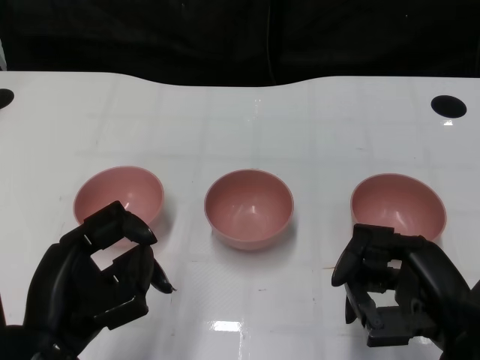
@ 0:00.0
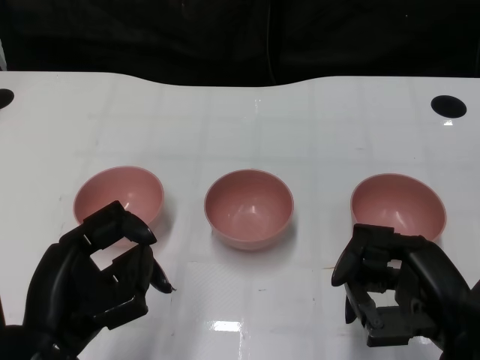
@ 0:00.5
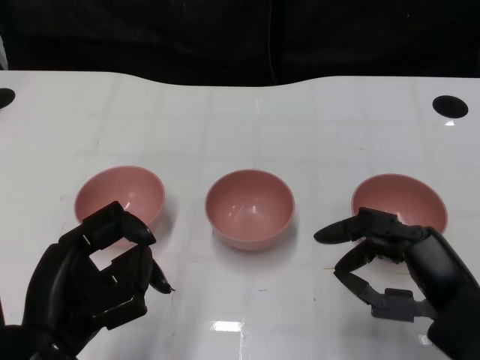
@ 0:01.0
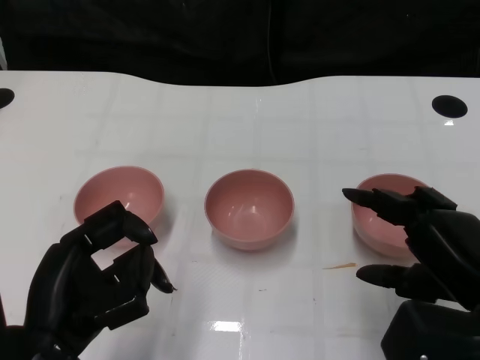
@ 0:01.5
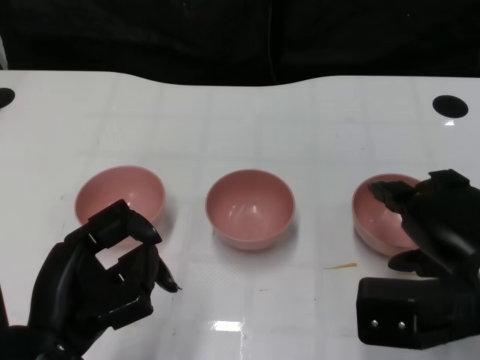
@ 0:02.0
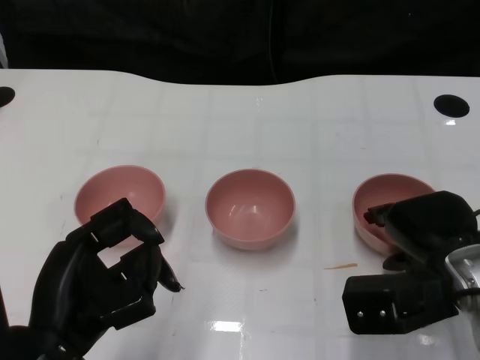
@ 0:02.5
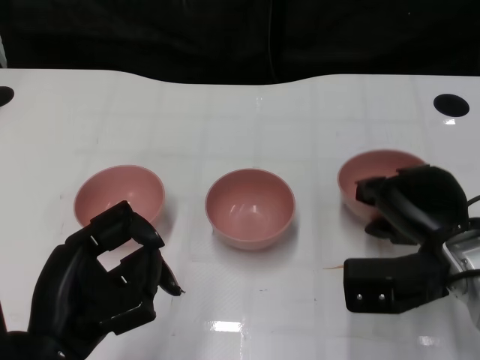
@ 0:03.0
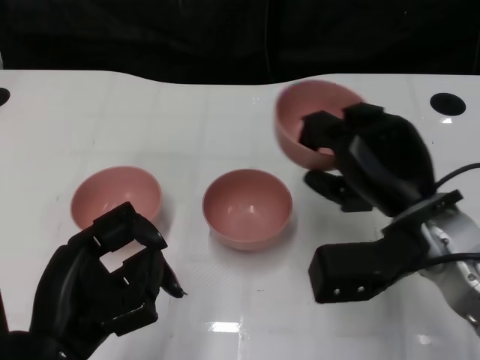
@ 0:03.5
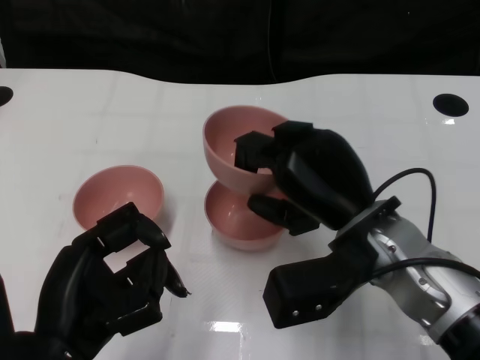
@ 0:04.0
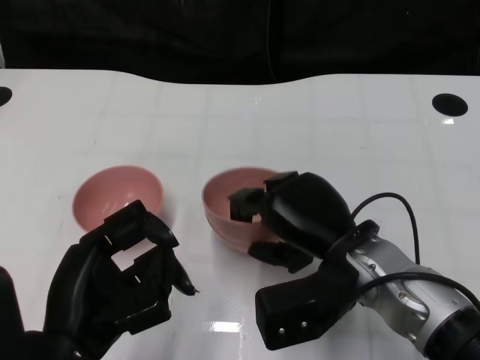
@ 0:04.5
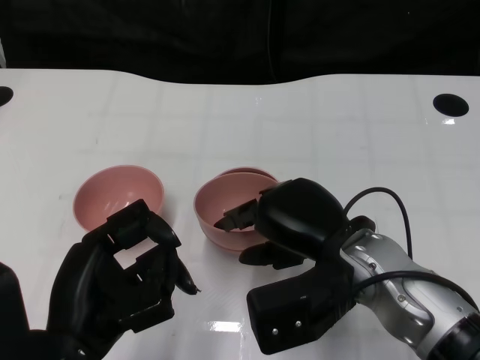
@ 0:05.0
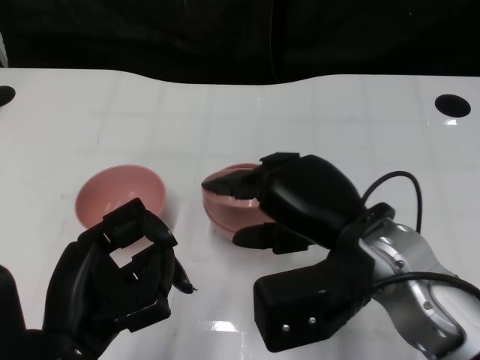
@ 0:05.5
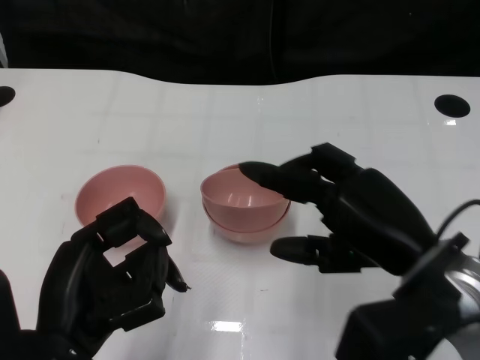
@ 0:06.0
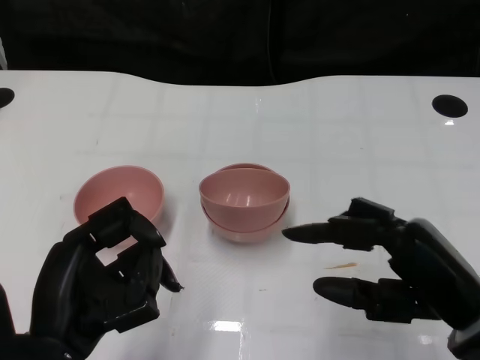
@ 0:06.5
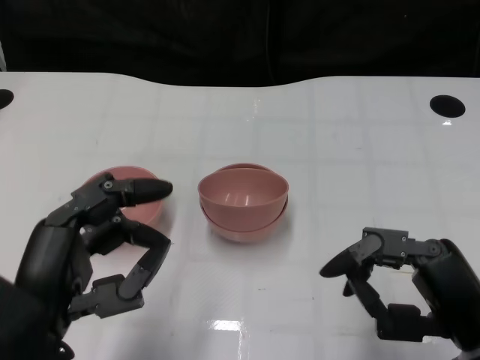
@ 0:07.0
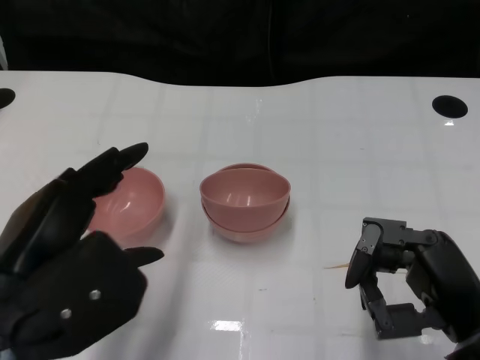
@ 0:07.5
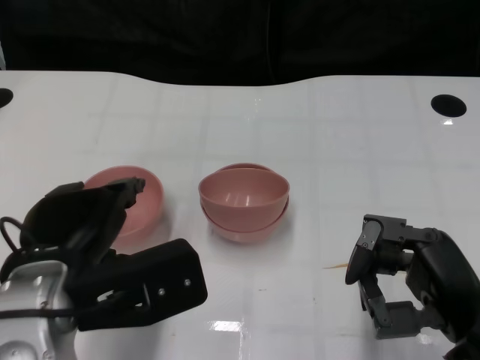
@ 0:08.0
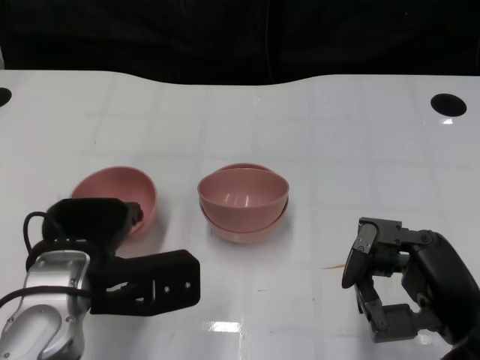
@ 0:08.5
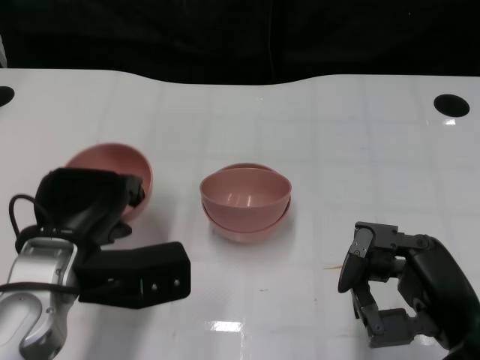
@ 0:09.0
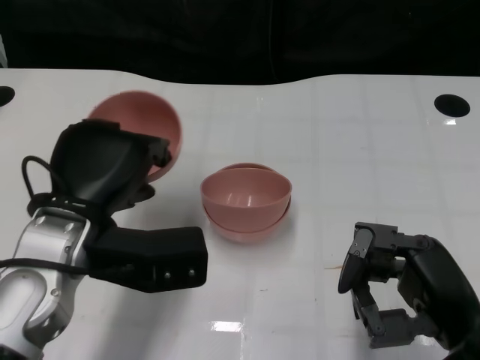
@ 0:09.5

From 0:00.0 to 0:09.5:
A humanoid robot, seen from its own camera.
Task of the whole recording: Pick up the bowl on one side of the table and place it on top of the middle bowl, then pick up the bowl on the other side of the table and place it on top of the middle bowls.
Step, from 0:01.0 to 0:02.5: Grasp the bowl on the right with the right gripper.
Step, from 0:03.5 to 0:05.5: Place the bowl on the right onto the bowl in the middle with right gripper.
Step, from 0:06.0 to 0:08.5: Grasp the bowl on the left with the left gripper.
From 0:02.0 to 0:04.0: The right hand shifts about 10 cm to the left and forward.
From 0:05.5 to 0:07.5: The right hand goes approximately 15 cm to the right, backward and downward. The left hand moves upward, some 5 cm.
From 0:07.5 to 0:09.5: The left hand travels forward by some 10 cm.

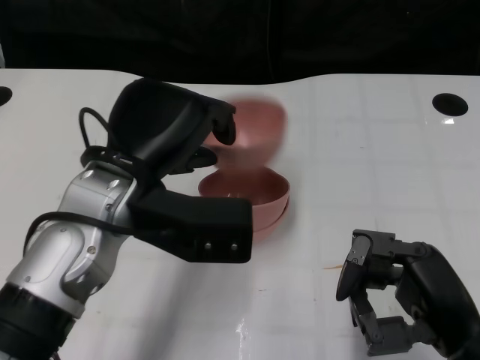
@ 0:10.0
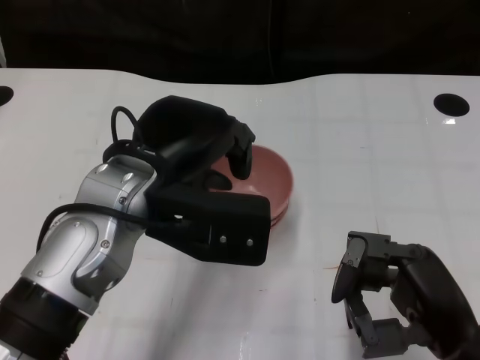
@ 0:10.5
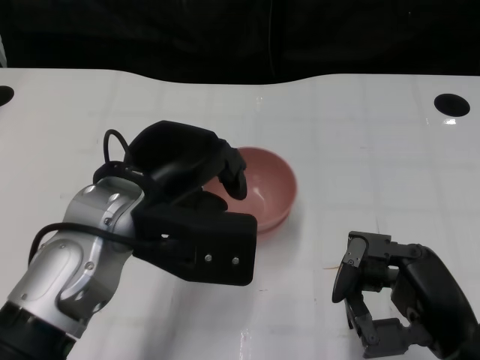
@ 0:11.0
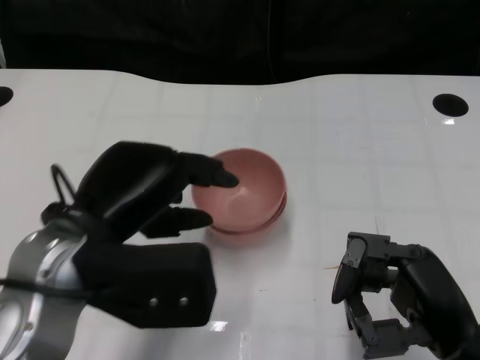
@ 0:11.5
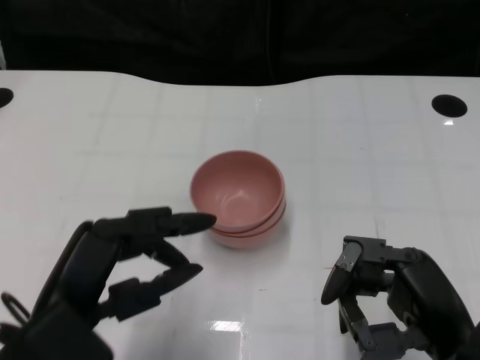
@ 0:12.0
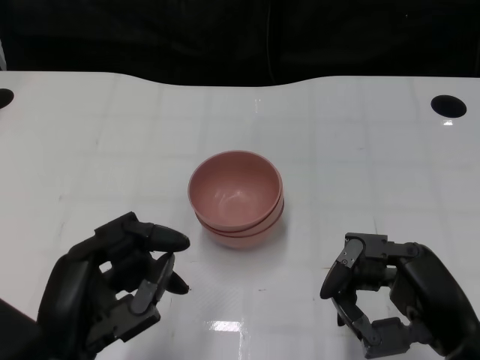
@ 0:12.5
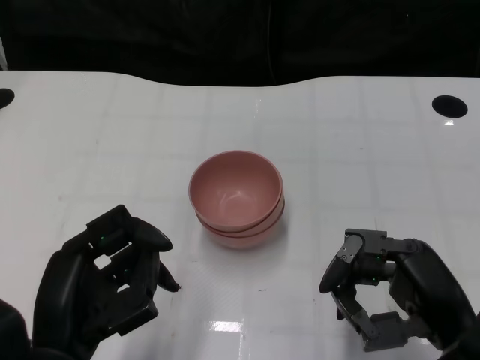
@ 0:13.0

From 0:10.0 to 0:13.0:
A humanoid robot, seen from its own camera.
Task of the whole recording: Pick up the bowl on one side of the table and place it on top of the middle bowl, then pick up the bowl on the other side of the table and place it on top of the middle bowls.
Step, from 0:10.0 to 0:11.5: Place the bowl on the left onto the bowl in the middle with left gripper.
From 0:10.0 to 0:11.5: The left hand ends up approximately 5 cm from where it was.
From 0:11.5 to 0:13.0: The left hand goes approximately 10 cm backward and downward.

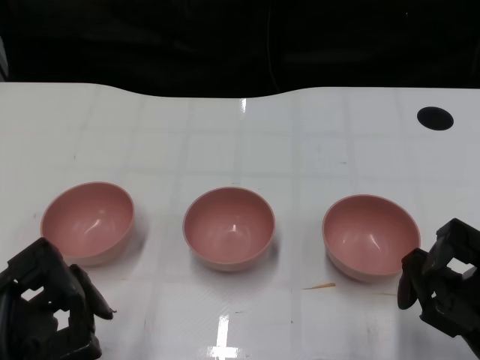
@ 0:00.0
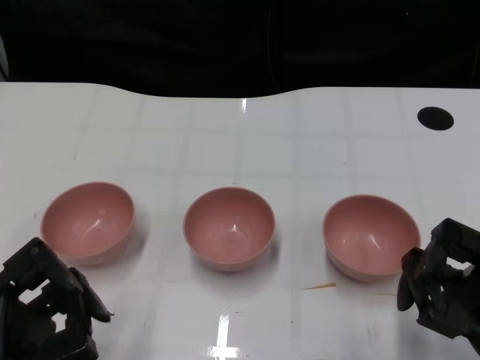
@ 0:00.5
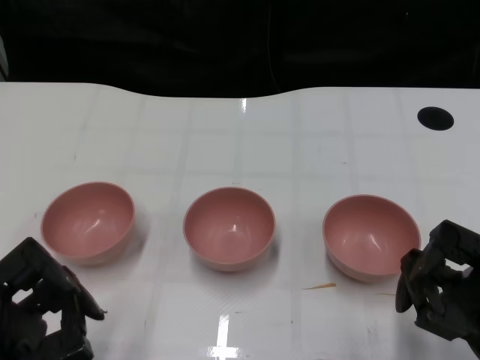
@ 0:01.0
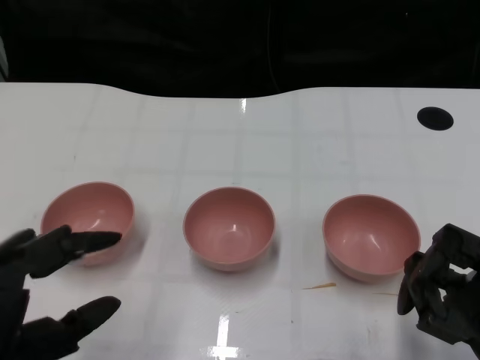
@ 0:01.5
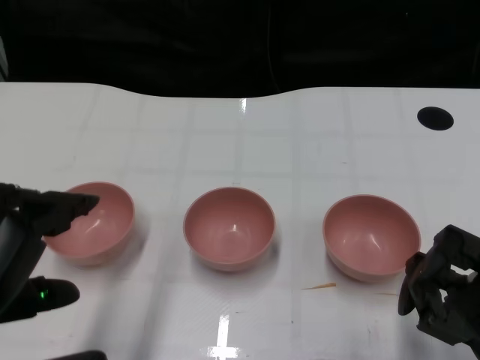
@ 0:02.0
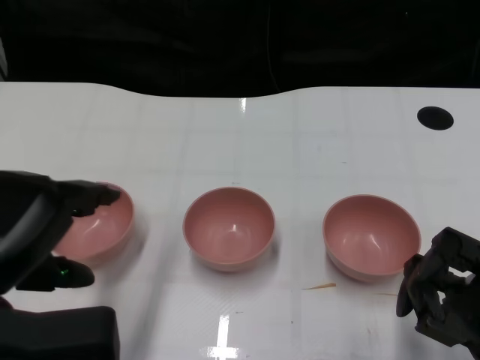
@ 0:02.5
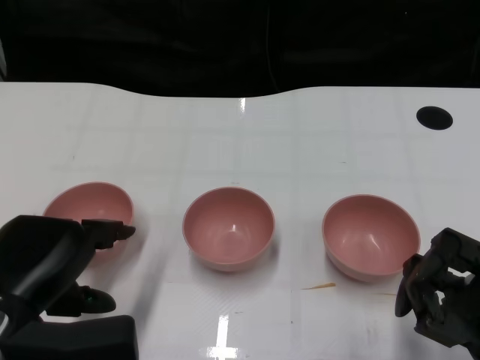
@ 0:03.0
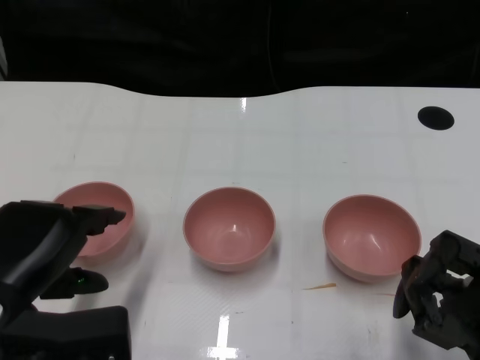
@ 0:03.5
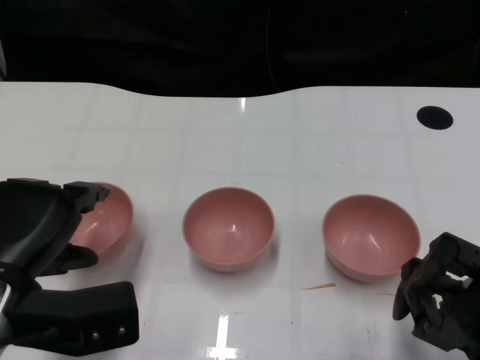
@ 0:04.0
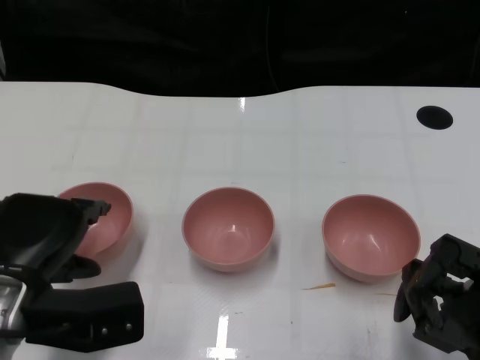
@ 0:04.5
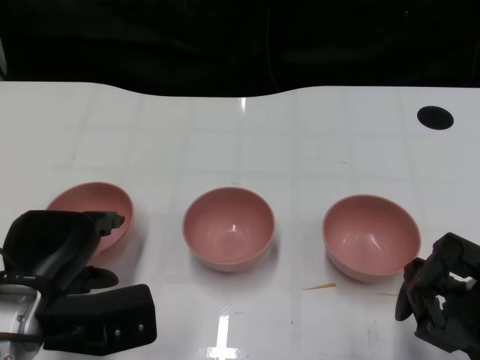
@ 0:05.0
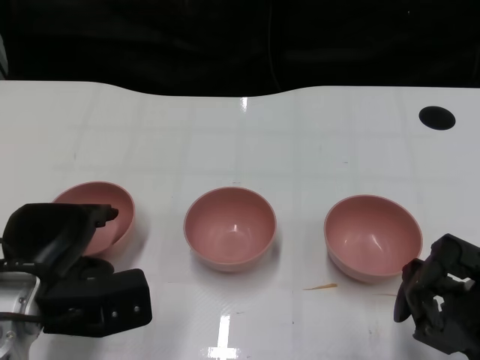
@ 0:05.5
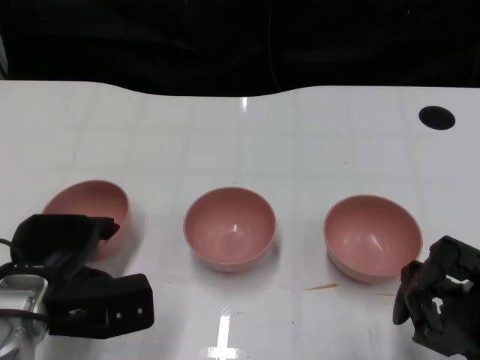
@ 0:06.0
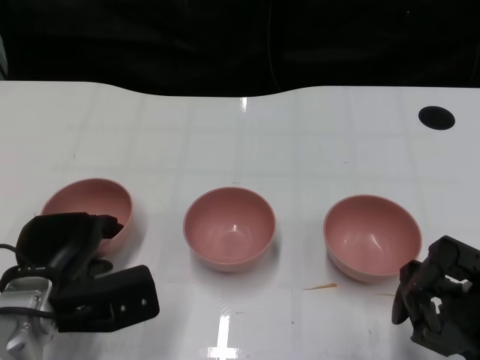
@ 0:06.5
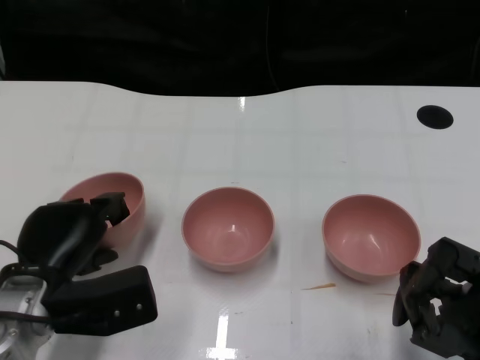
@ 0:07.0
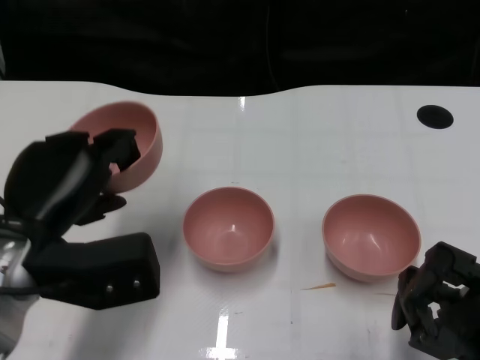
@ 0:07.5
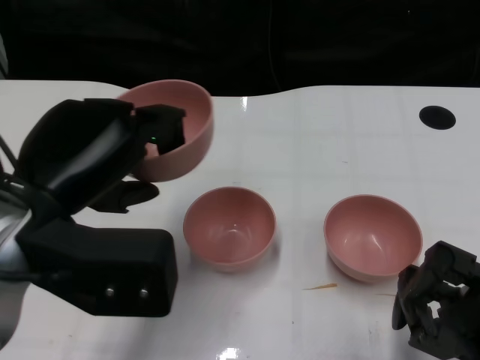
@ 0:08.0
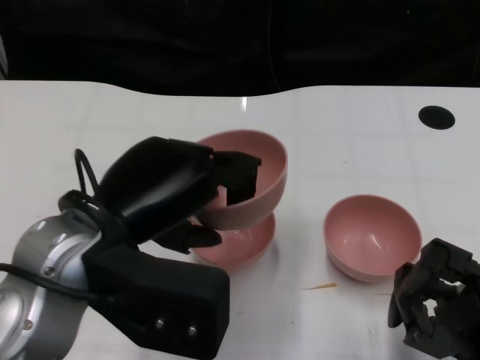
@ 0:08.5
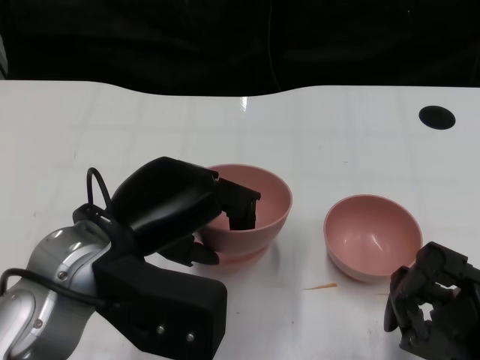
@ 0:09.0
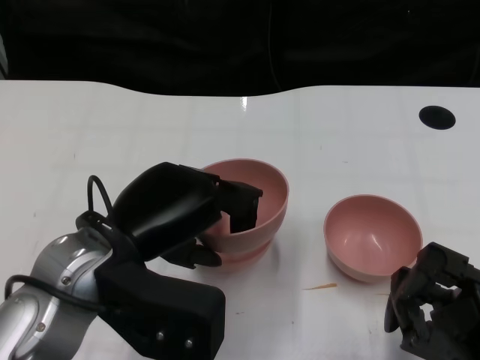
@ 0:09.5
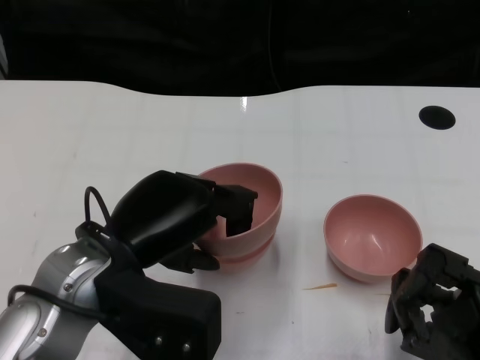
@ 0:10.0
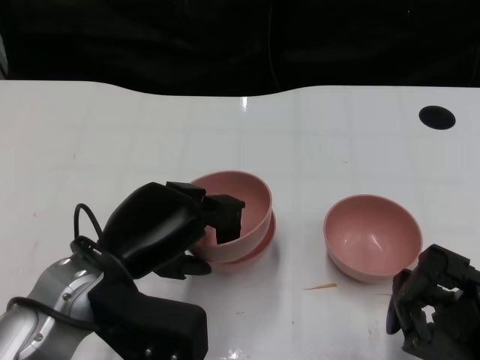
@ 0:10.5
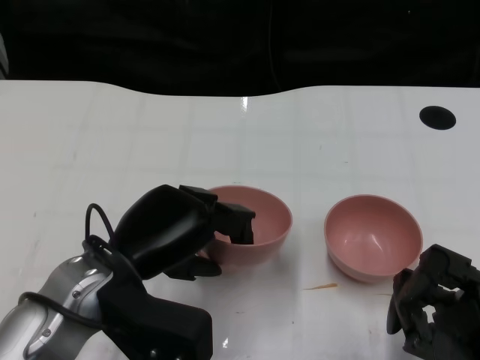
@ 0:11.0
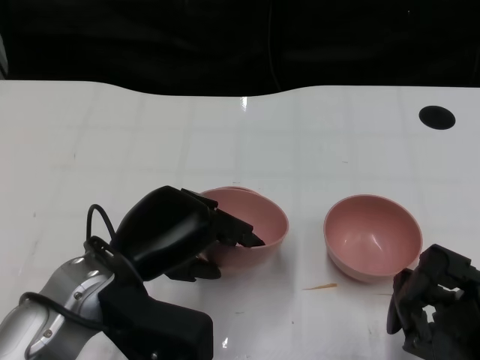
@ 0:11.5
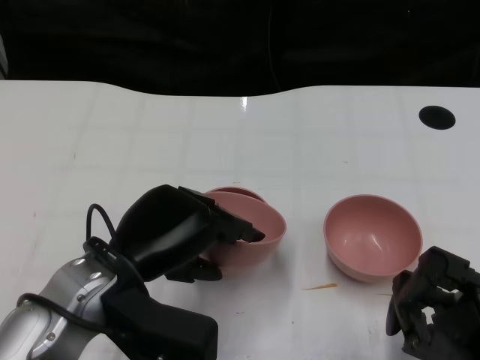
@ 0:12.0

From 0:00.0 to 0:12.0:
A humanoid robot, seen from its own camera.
Task of the whole recording: Pick up the bowl on one side of the table and place it on top of the middle bowl, then pick up the bowl on the other side of the table and place it on top of the middle bowls.
Step, from 0:01.5 to 0:07.0: Grasp the bowl on the left with the left gripper.
From 0:02.0 to 0:04.0: The left hand travels forward and downward by some 10 cm.
From 0:04.0 to 0:06.0: The left hand is displaced downward by some 5 cm.
From 0:06.0 to 0:08.0: The left hand shifts about 15 cm upward.
From 0:08.0 to 0:10.0: The left hand moves downward, about 5 cm.
From 0:10.0 to 0:12.0: The hands stay close to where they were, moving slightly.
